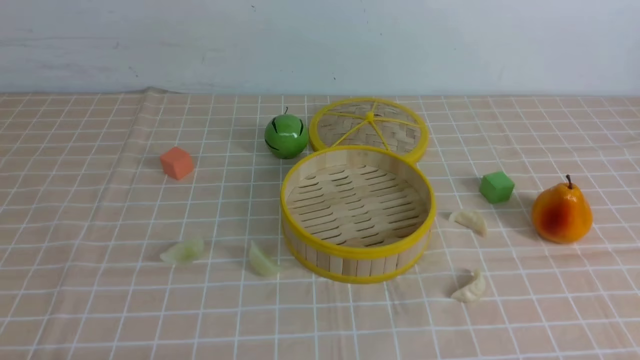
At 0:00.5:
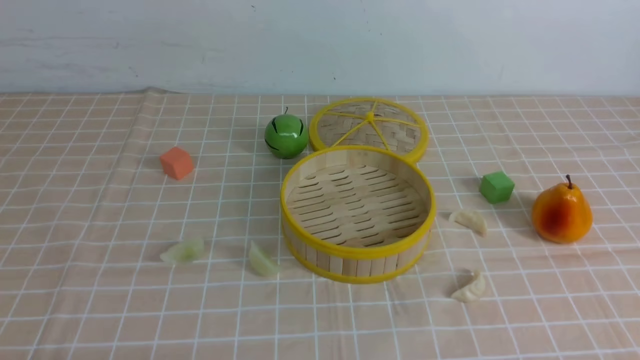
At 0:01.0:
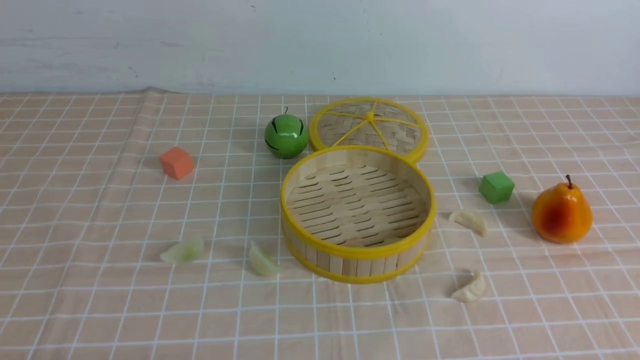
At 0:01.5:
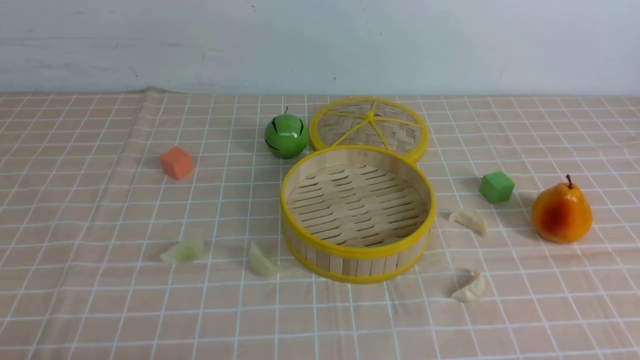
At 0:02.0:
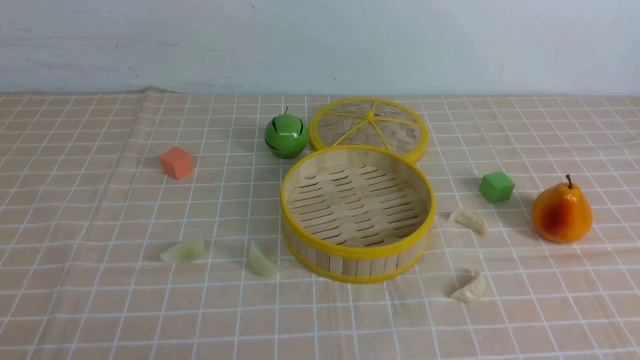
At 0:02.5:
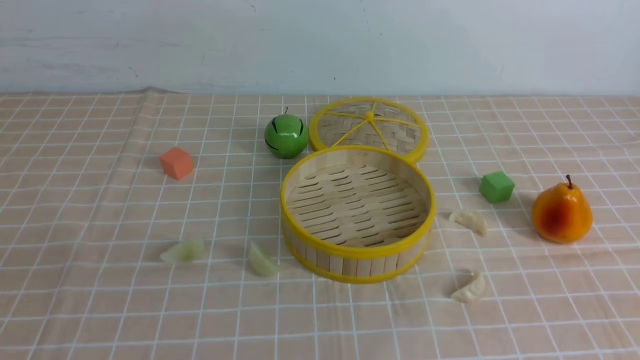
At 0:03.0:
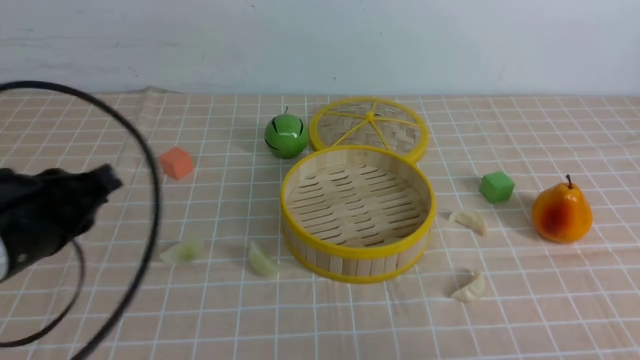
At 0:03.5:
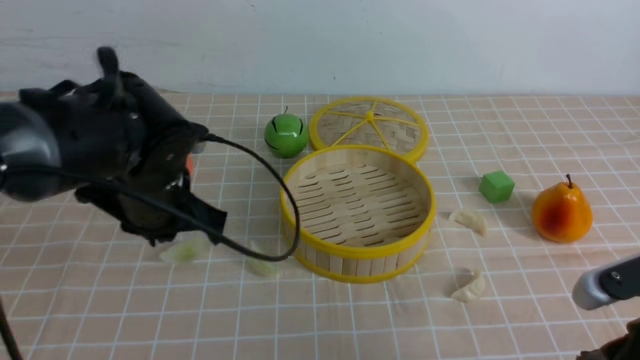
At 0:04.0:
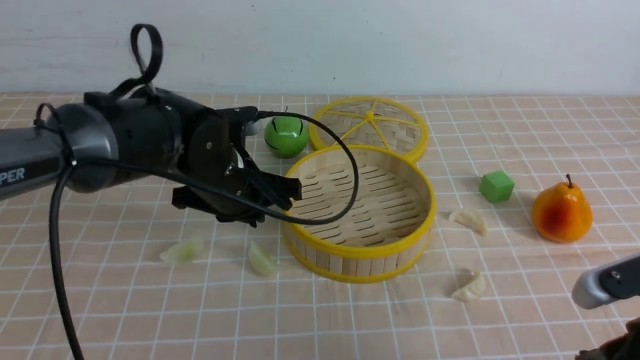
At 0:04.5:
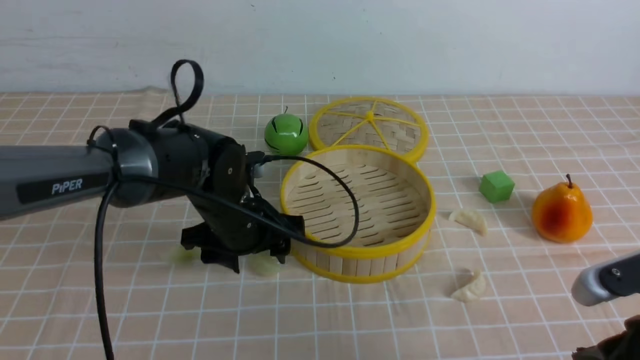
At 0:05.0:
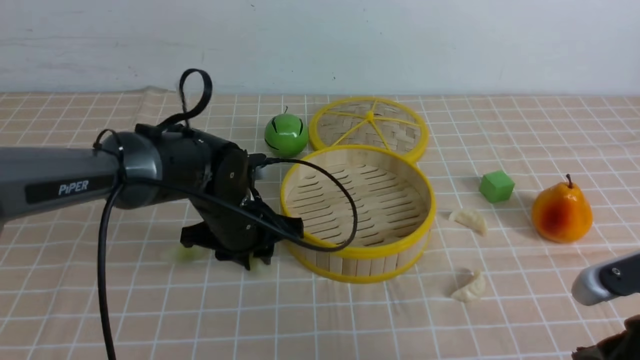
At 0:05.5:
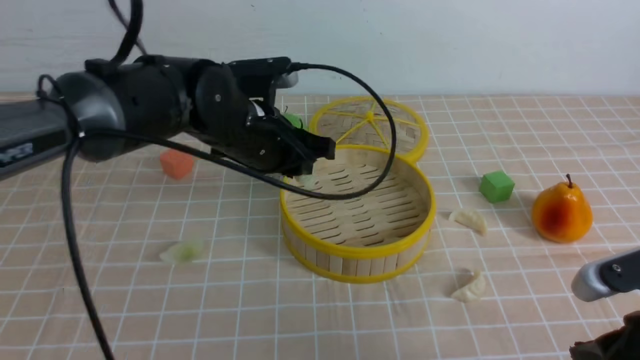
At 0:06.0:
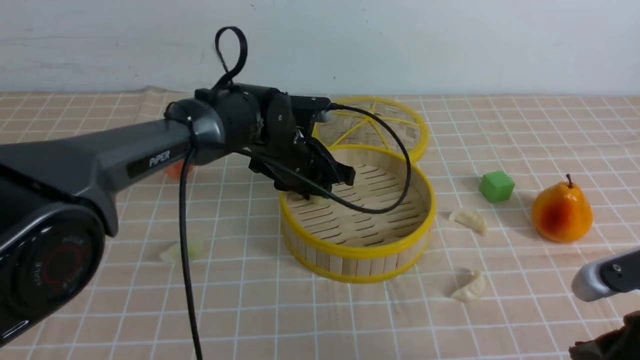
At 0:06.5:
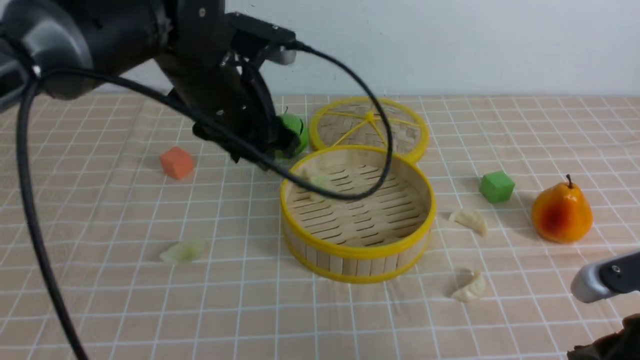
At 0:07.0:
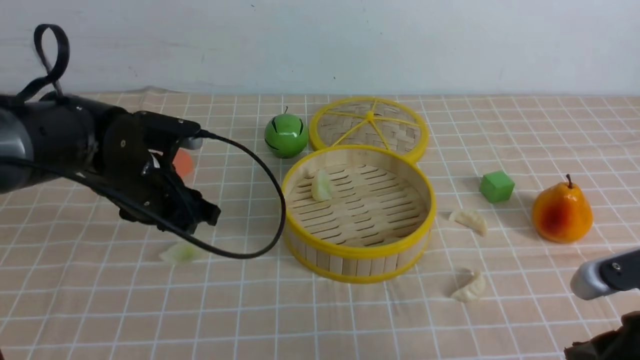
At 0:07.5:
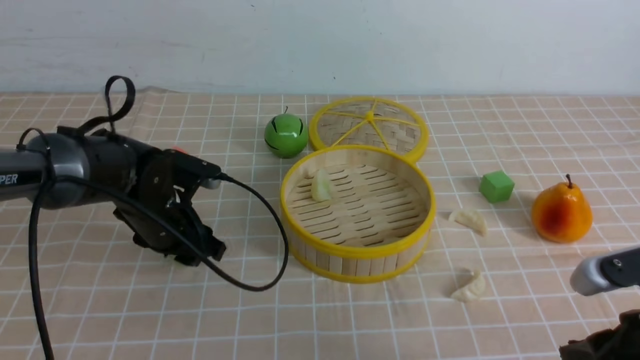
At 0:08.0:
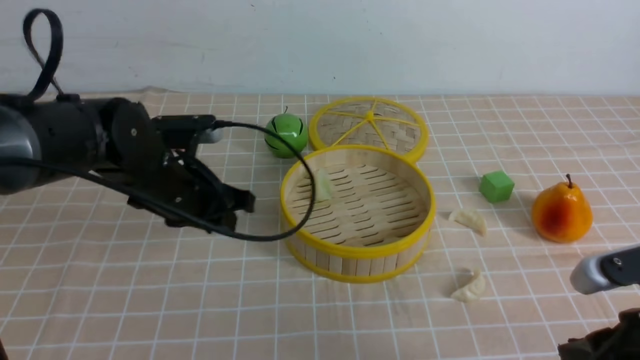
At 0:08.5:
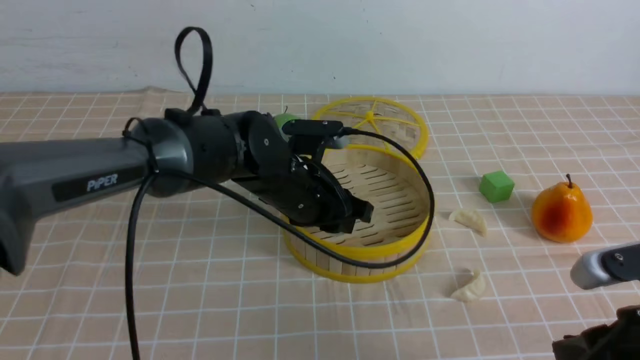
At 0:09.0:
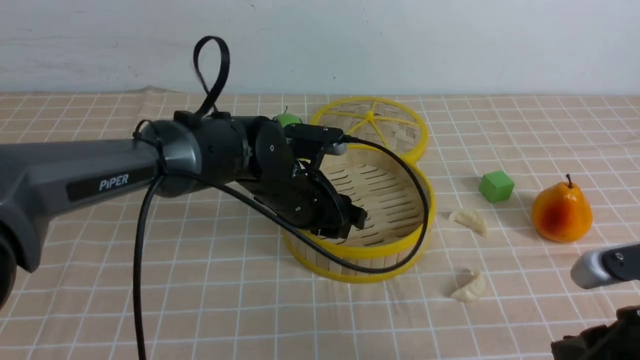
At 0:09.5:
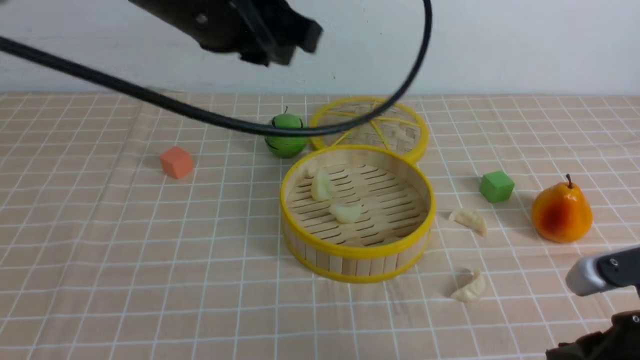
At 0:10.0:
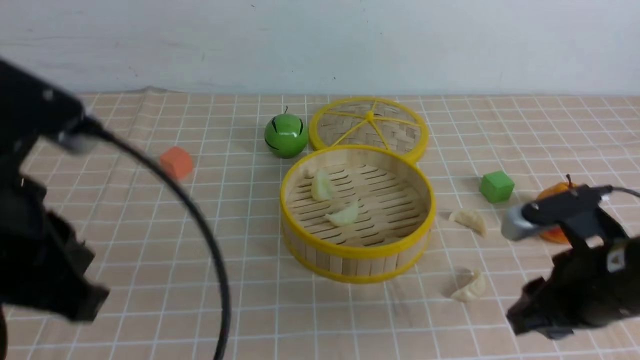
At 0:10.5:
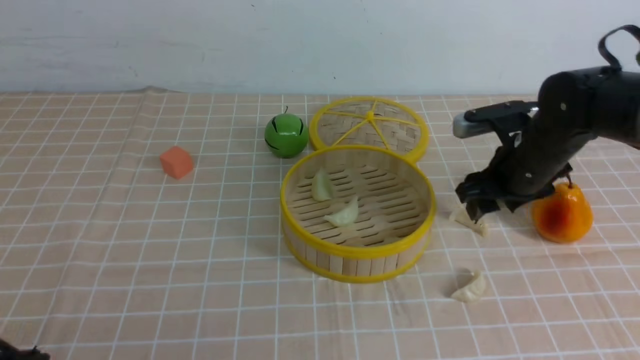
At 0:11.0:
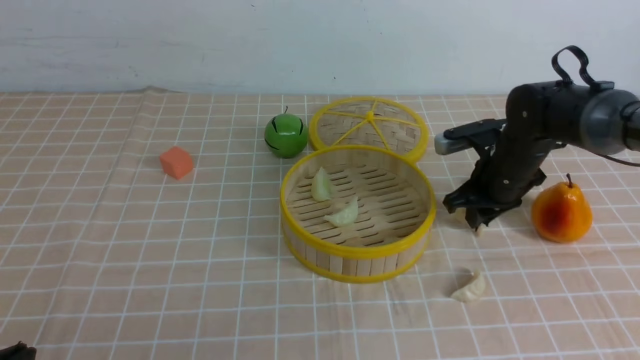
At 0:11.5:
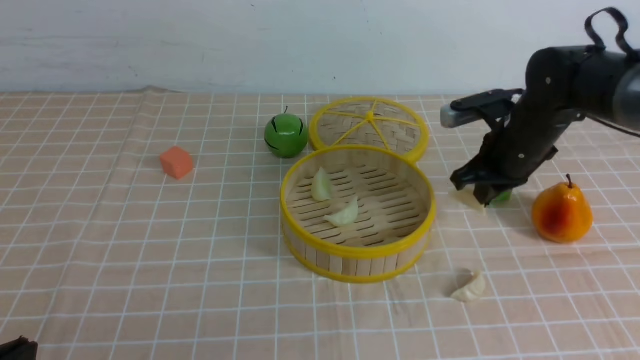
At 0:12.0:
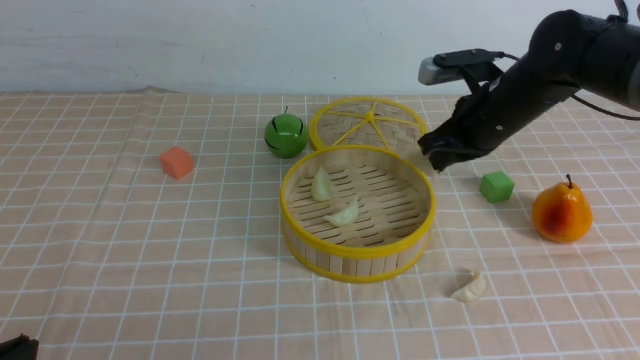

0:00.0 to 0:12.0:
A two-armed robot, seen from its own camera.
Task of the whole recording: put the dumplings into the steamer on the table with the brown tablecloth.
Step, 0:00.0 to 0:04.5: use the left arm to grab a dumpling.
Step, 0:05.0 to 0:06.0: use the left arm to put the dumpling into the steamer.
Step, 0:06.5 to 0:07.5: use the left arm to grab a dumpling.
Step, 0:08.0 to 0:09.0: use the left arm to put the dumpling into the steamer.
Step, 0:09.5 to 0:11.0: use the right arm to grab a dumpling.
0:02.0 to 0:04.0: The right gripper heads forward and to the left, covering some 15 cm, and closes up, while the left gripper goes about 35 cm forward and to the right.
0:04.0 to 0:06.0: The left gripper heads forward and to the right, covering roughly 10 cm.
0:06.0 to 0:08.0: The left gripper travels to the left and backward by roughly 10 cm.
0:08.0 to 0:10.0: The right gripper moves forward, roughly 10 cm, and opens; the left gripper travels backward and upward by some 25 cm, and closes.
0:10.0 to 0:12.0: The left gripper moves downward, backward and to the left, approximately 15 cm; the right gripper travels forward by about 20 cm, and closes.

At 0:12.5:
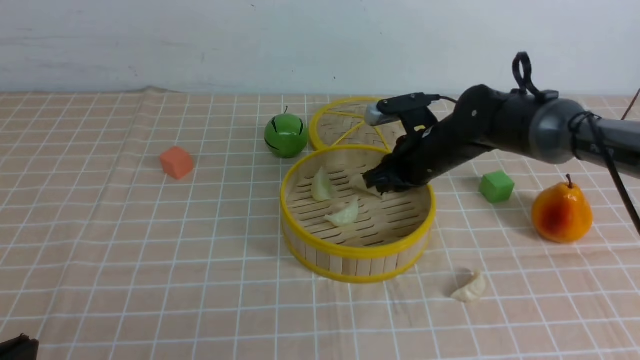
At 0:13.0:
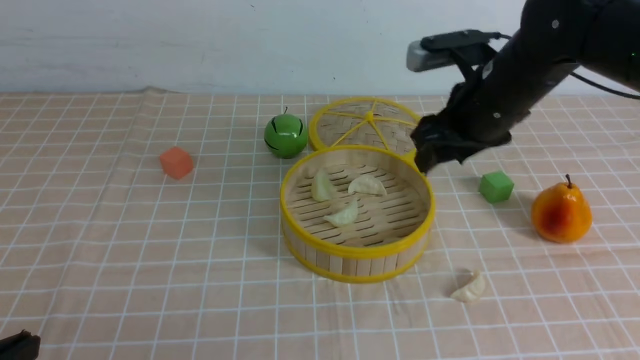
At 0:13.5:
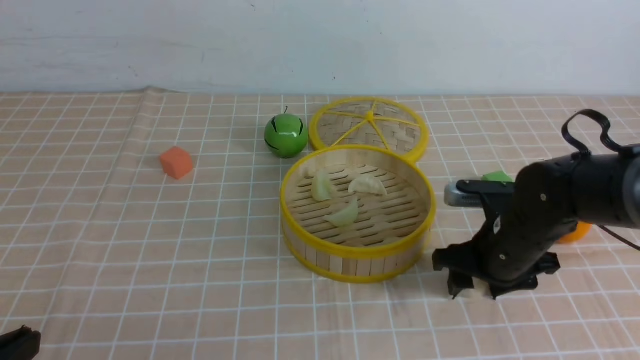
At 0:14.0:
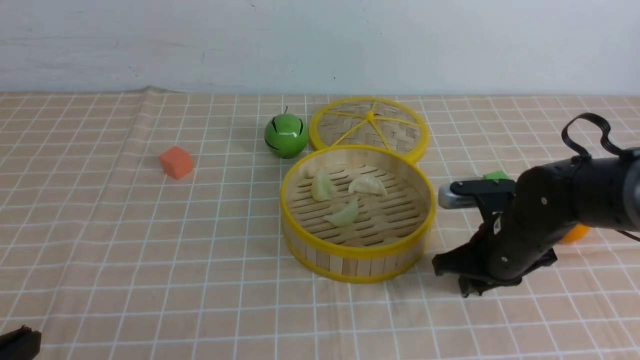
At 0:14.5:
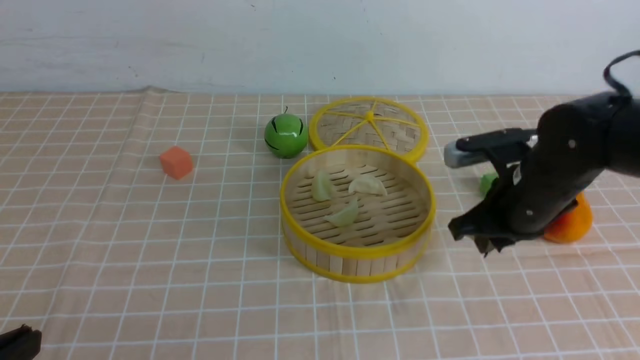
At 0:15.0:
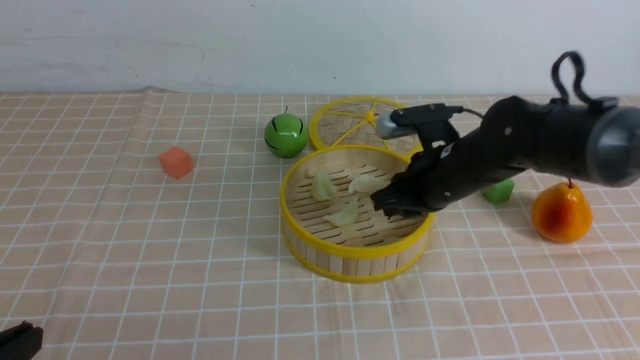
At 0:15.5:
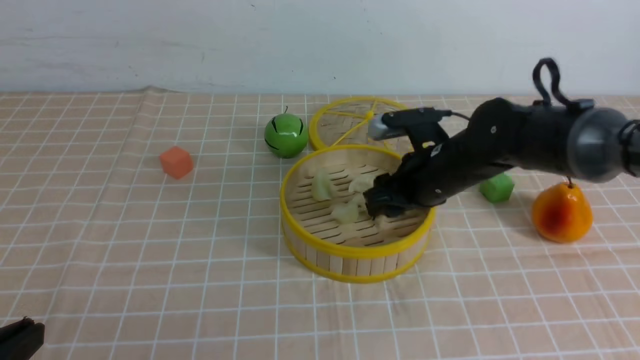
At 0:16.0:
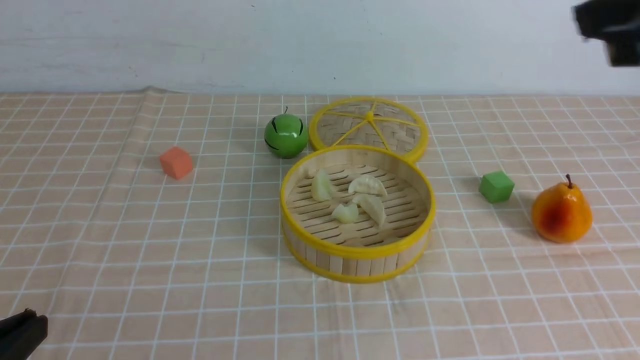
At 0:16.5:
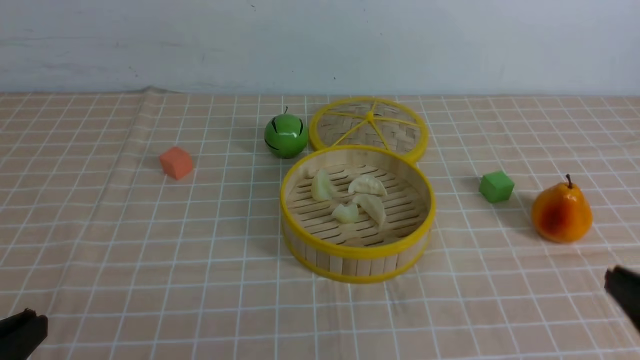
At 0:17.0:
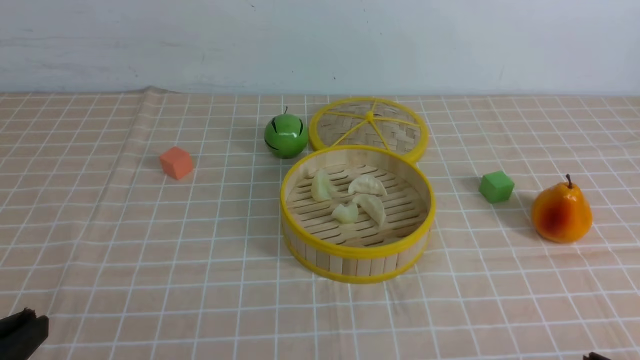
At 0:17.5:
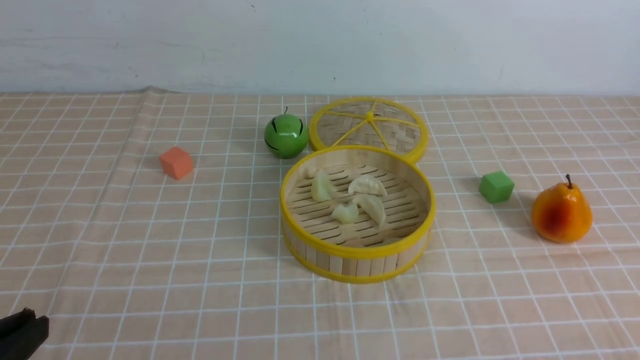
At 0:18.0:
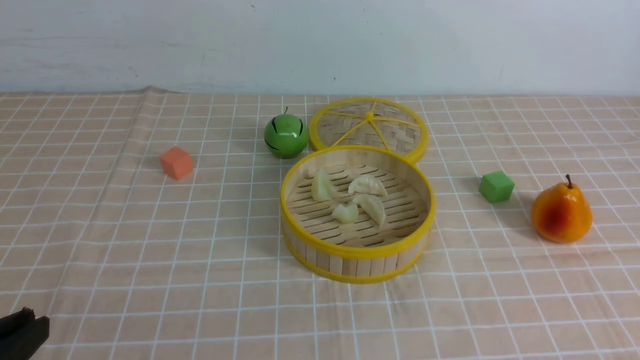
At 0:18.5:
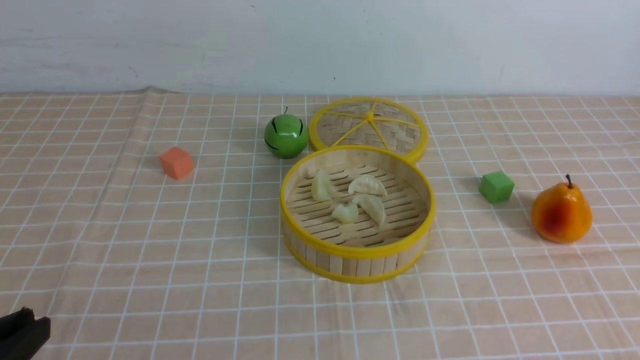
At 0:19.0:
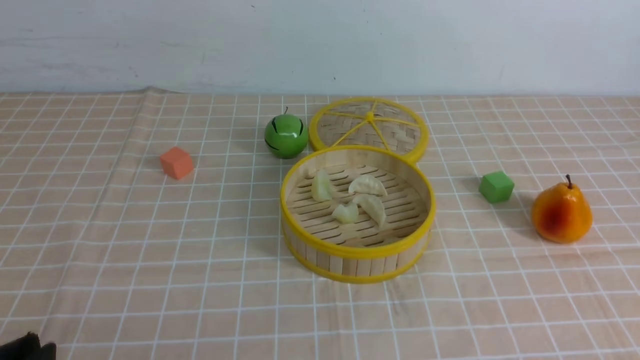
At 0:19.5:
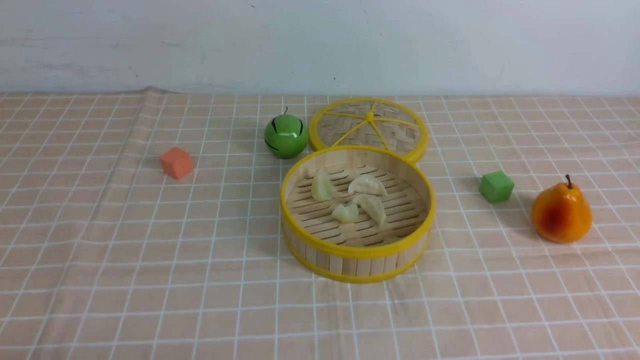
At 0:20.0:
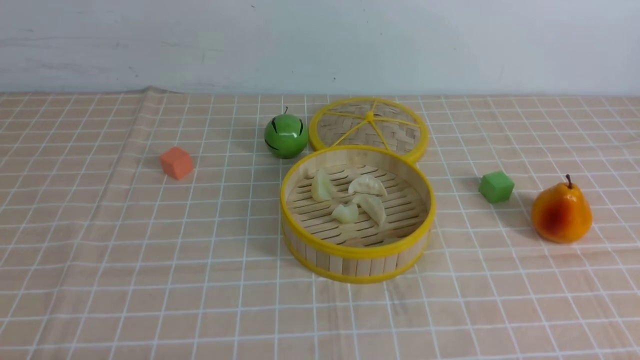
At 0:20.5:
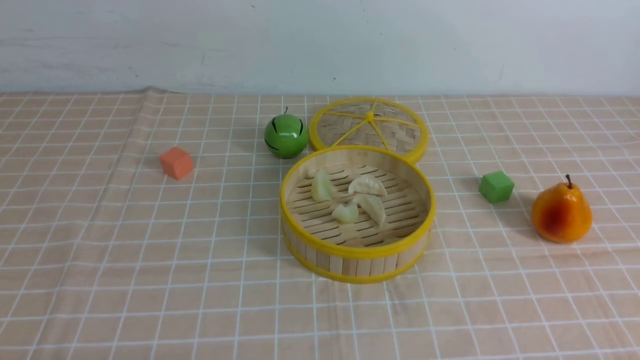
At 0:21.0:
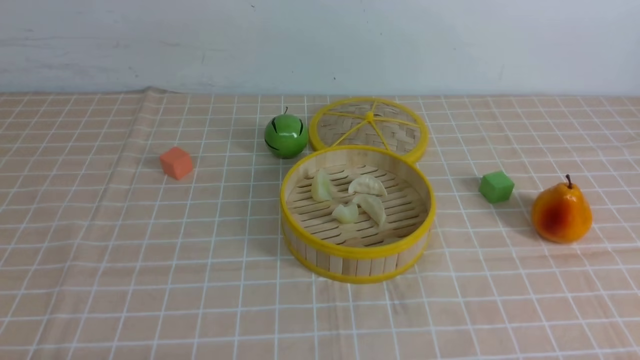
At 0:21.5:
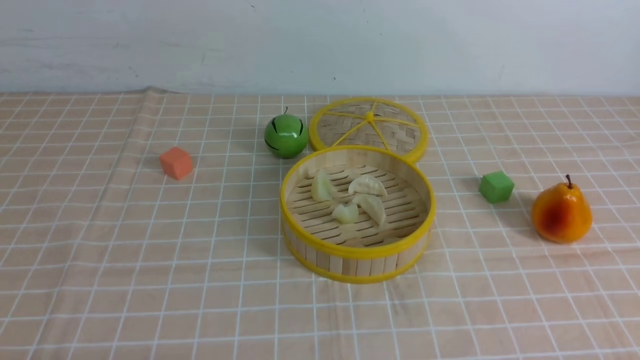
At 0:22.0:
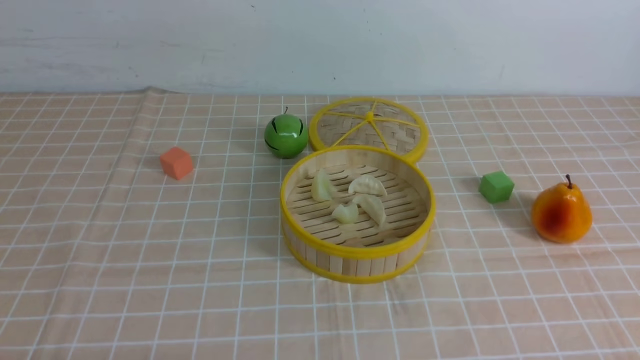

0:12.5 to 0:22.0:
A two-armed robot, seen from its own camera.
Task of the whole recording: put the dumplings into the steamer on the table with the brown tablecloth.
Step, 0:13.0 to 0:13.5: use the right arm to grab a dumpling.
Step, 0:14.0 to 0:15.5: use the right arm to put the dumpling into the steamer.
0:12.5 to 0:14.5: The right gripper heads backward and to the right, covering about 10 cm, and opens, then closes once more.
0:14.5 to 0:16.5: The right gripper heads backward, covering some 25 cm, and opens and closes again.
0:16.5 to 0:18.0: The right gripper goes some 10 cm downward.
0:18.0 to 0:20.0: The left gripper shifts some 10 cm downward.
0:20.0 to 0:22.0: Neither gripper changes place.
